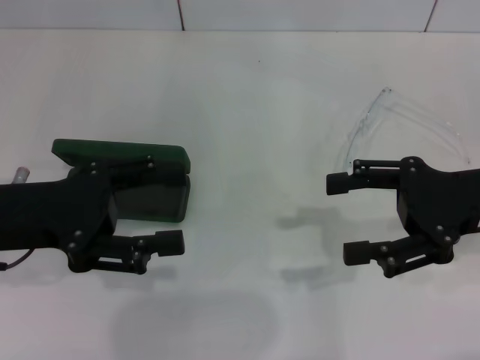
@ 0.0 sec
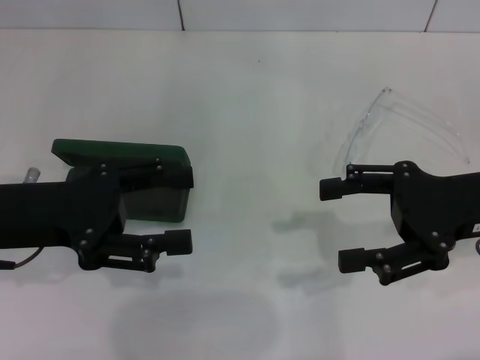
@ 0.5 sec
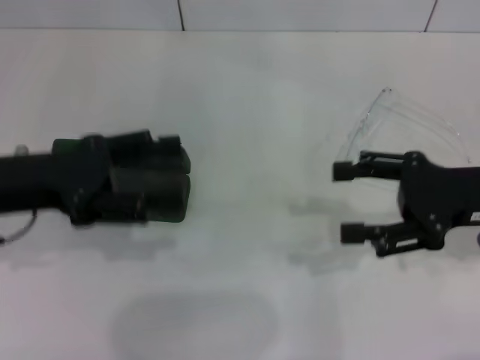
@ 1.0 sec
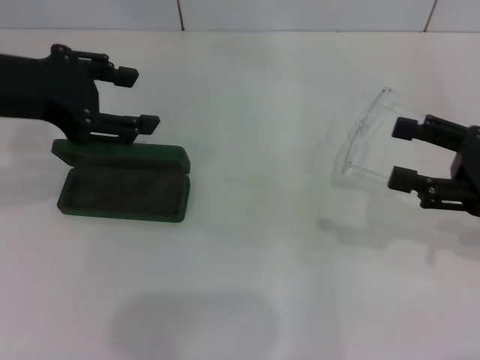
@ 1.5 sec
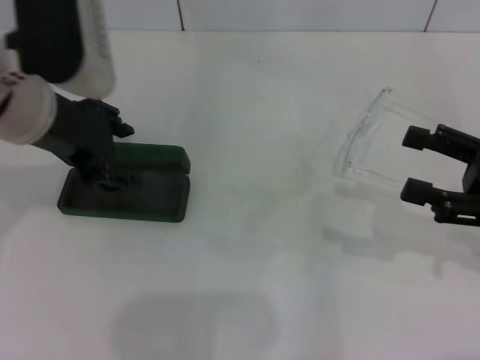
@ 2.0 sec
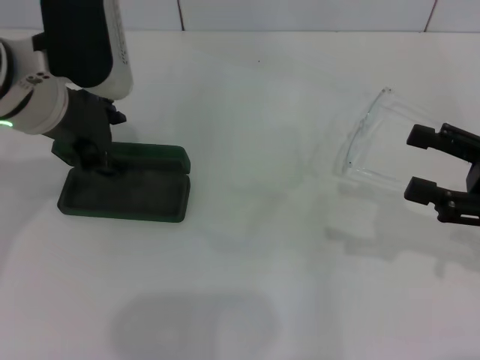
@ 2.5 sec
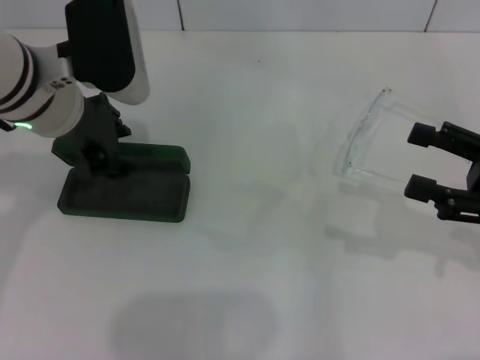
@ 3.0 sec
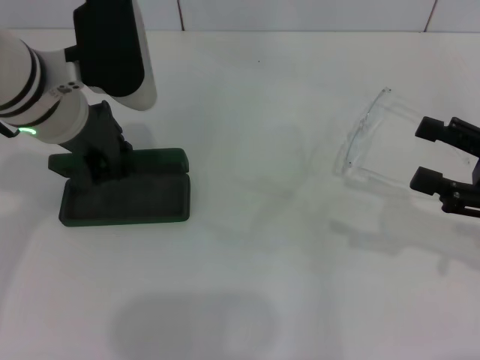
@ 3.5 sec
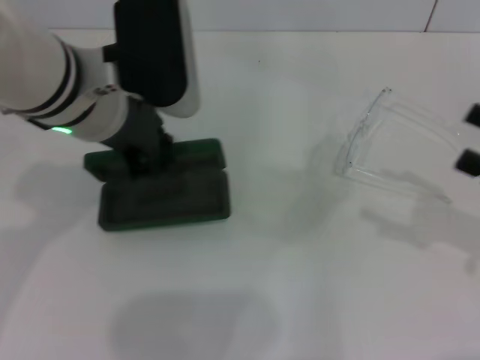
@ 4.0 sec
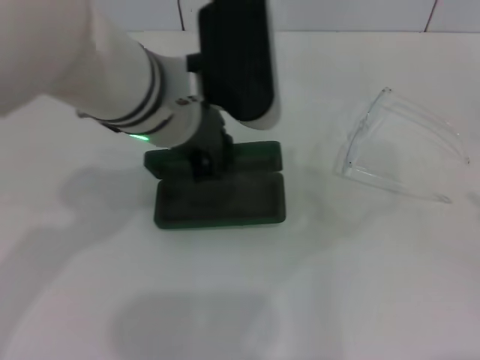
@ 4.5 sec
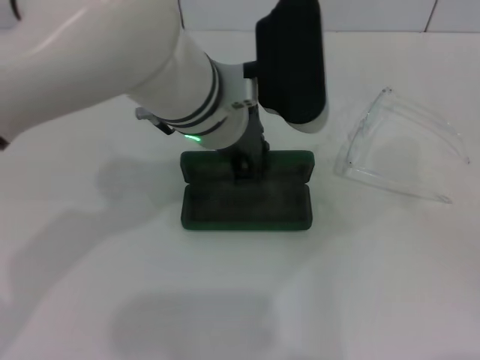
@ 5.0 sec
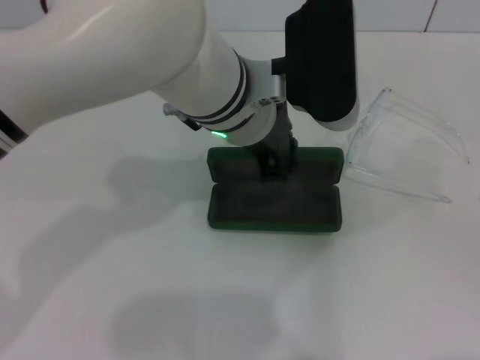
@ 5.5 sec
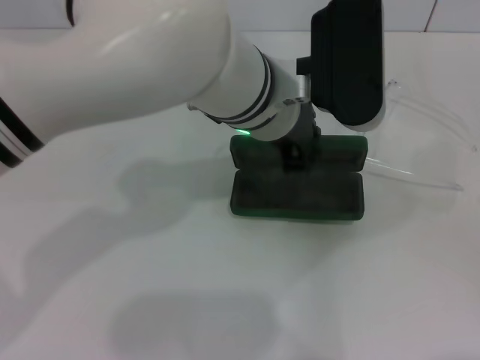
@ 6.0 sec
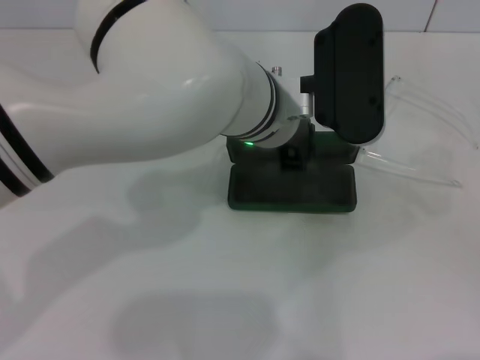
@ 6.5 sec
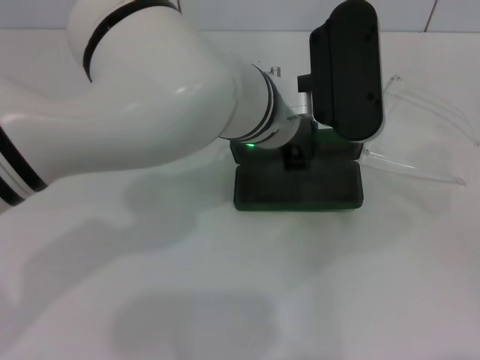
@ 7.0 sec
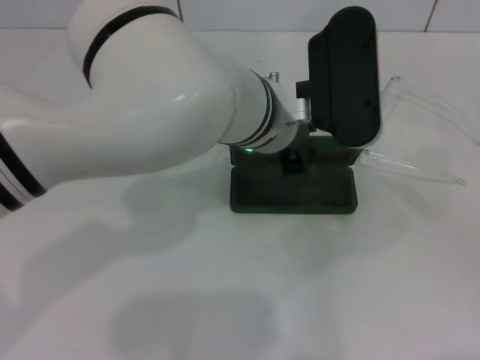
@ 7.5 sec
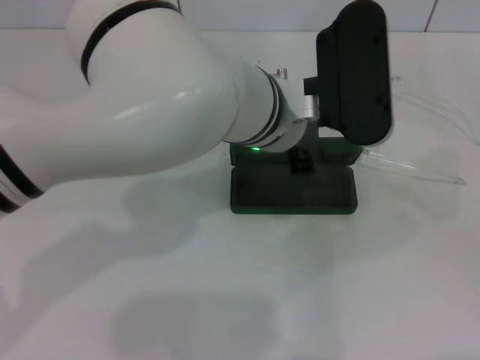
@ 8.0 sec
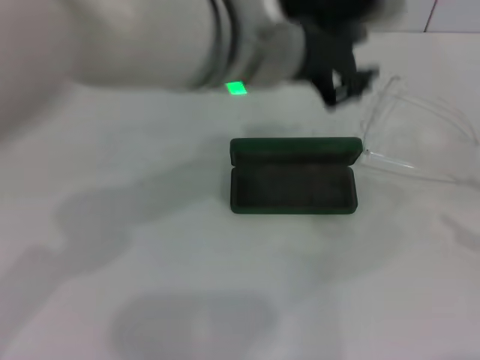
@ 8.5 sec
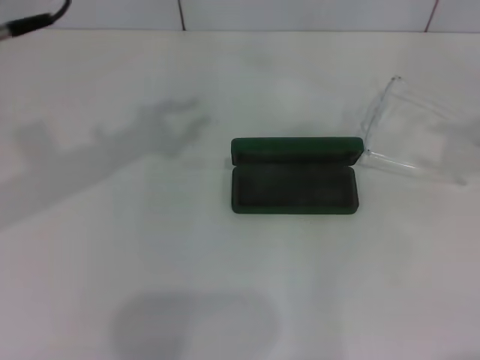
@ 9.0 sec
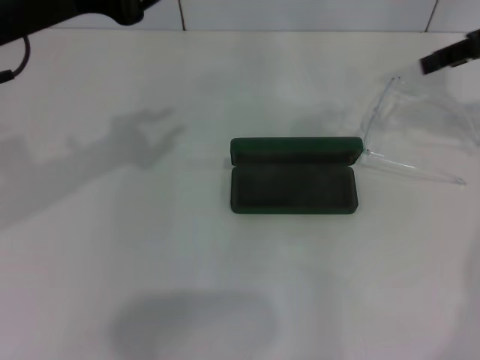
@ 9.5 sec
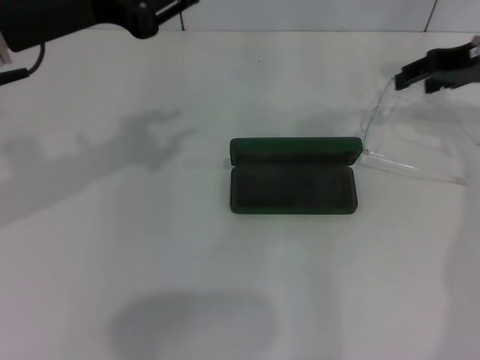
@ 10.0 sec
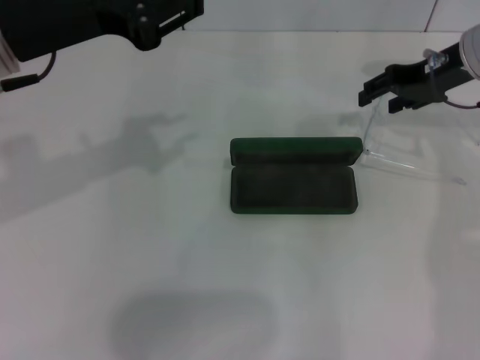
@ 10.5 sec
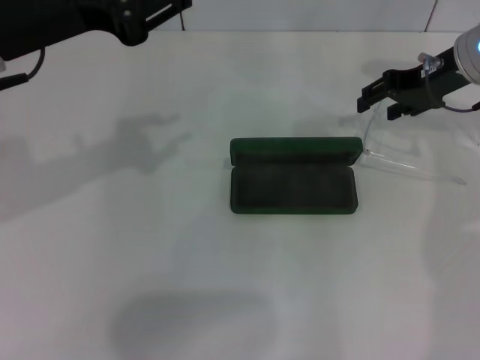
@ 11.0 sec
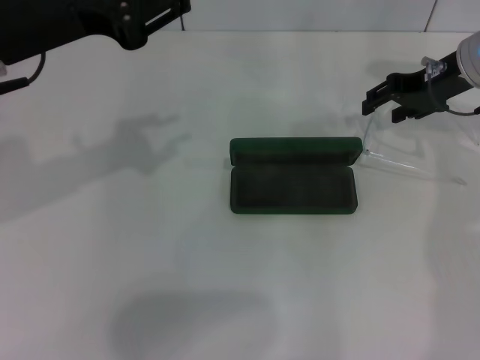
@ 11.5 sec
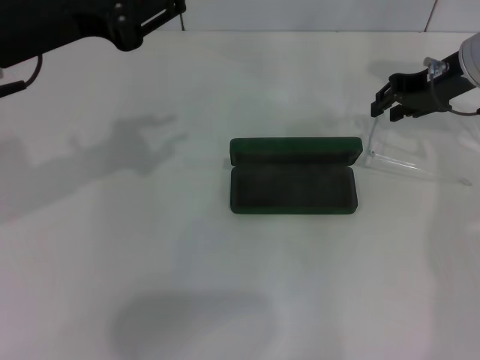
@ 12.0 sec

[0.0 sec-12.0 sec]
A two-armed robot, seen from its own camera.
Step, 0.0 sec to 3.5 sec: Grab the glasses case with your left hand.
Step, 4.0 sec to 7.5 sec: Place the glasses case in the center of the table with your left hand.
0.0 sec to 2.0 sec: The left gripper moves to the right, upward and forward, approximately 15 cm; the right gripper heads to the right, covering approximately 5 cm.
2.0 sec to 4.0 sec: The left gripper travels to the right by some 5 cm, and closes up.
4.0 sec to 6.0 sec: The right gripper goes roughly 10 cm backward and to the right. Meanwhile the left gripper moves to the right, about 15 cm.
6.0 sec to 8.0 sec: There are only small adjustments of the grippers.
8.0 sec to 10.0 sec: The left gripper travels to the left by about 20 cm; the right gripper heads forward and to the left, covering about 30 cm.
10.0 sec to 12.0 sec: The right gripper shifts by approximately 5 cm.

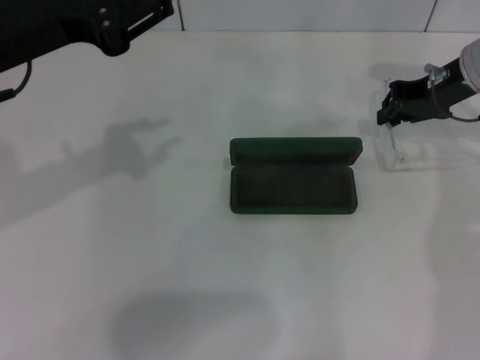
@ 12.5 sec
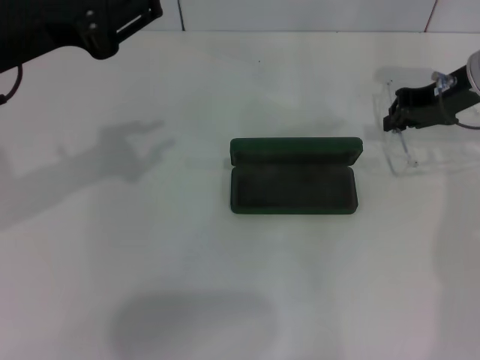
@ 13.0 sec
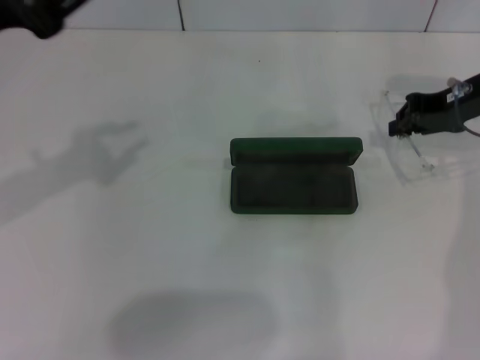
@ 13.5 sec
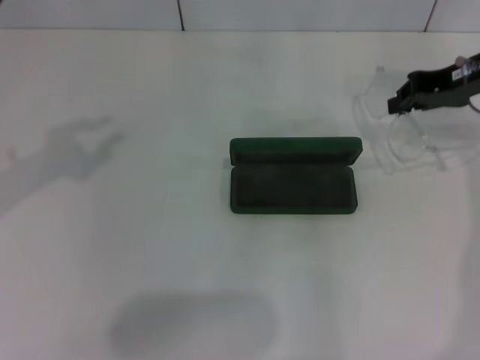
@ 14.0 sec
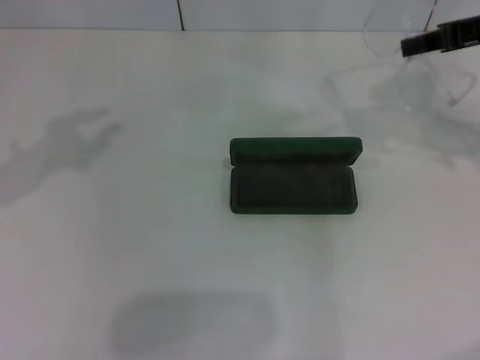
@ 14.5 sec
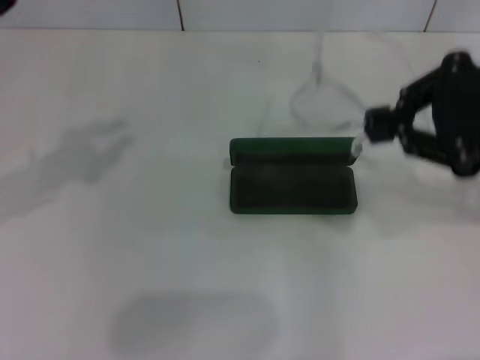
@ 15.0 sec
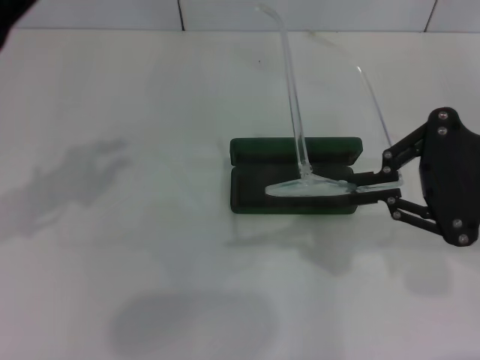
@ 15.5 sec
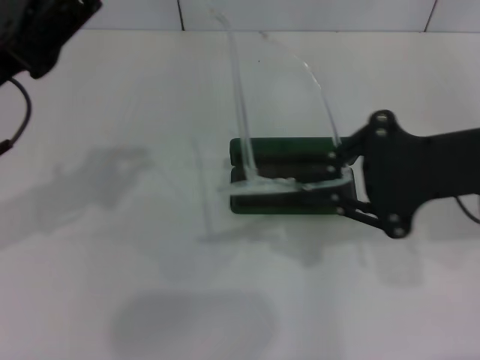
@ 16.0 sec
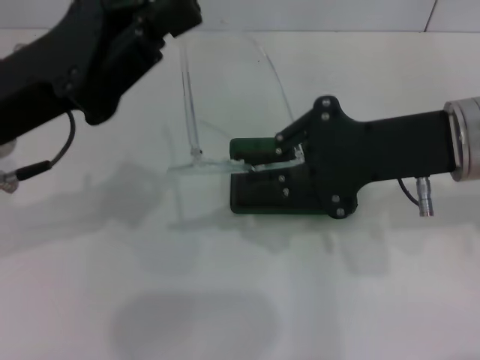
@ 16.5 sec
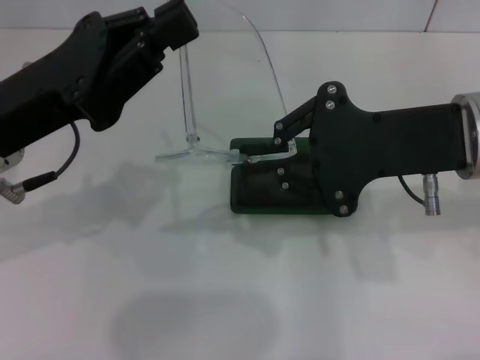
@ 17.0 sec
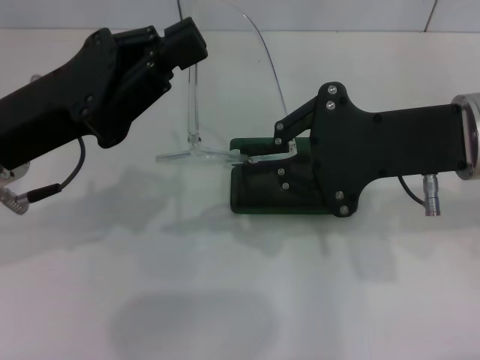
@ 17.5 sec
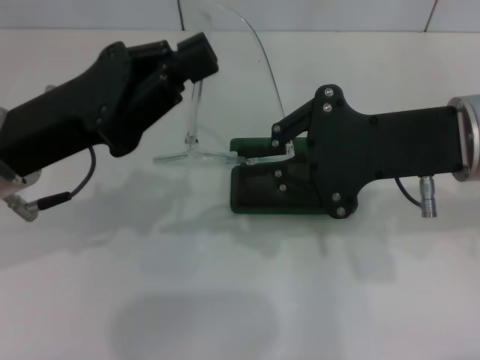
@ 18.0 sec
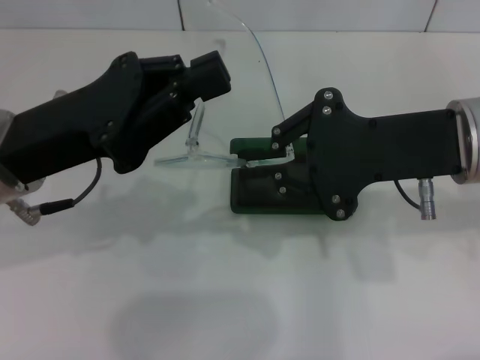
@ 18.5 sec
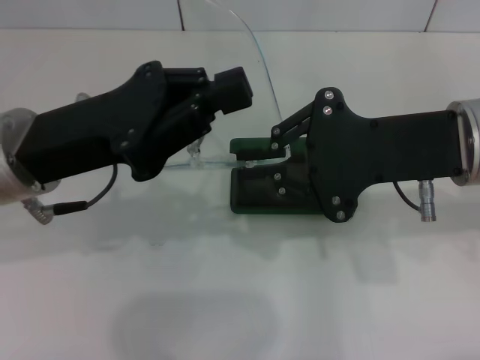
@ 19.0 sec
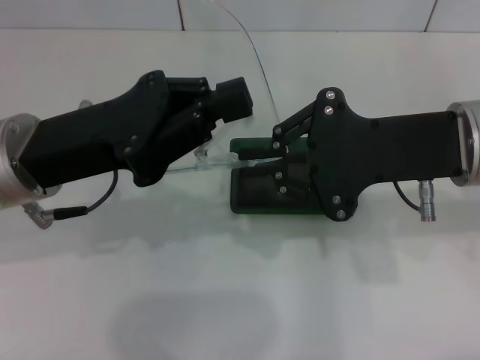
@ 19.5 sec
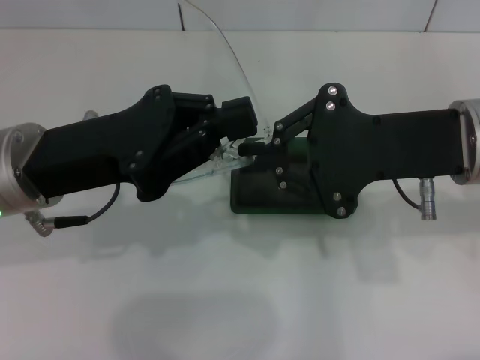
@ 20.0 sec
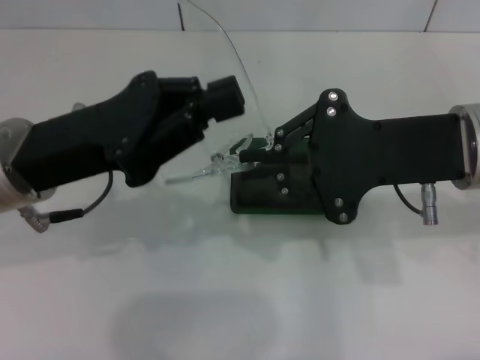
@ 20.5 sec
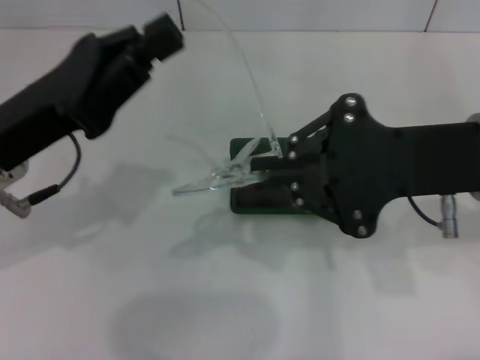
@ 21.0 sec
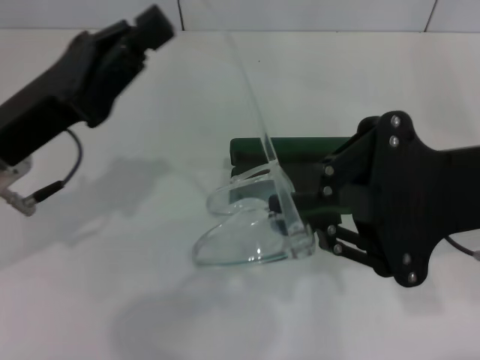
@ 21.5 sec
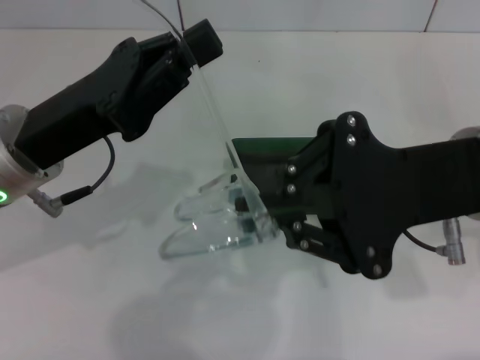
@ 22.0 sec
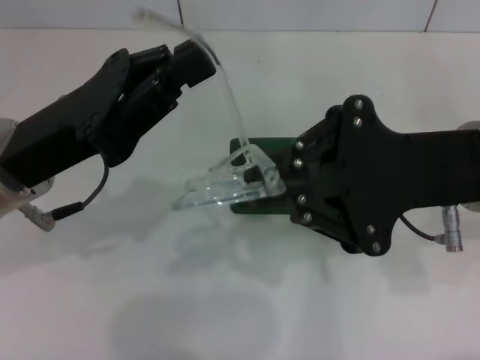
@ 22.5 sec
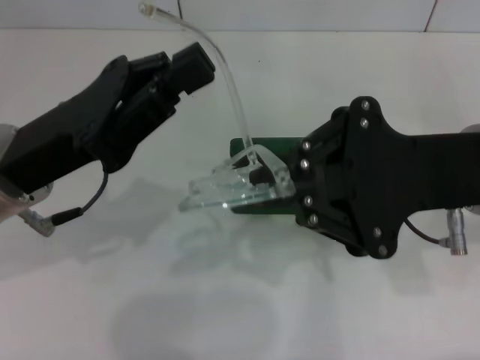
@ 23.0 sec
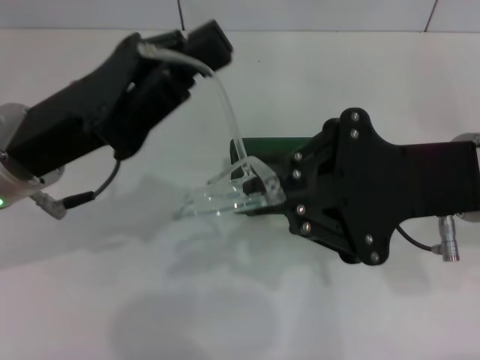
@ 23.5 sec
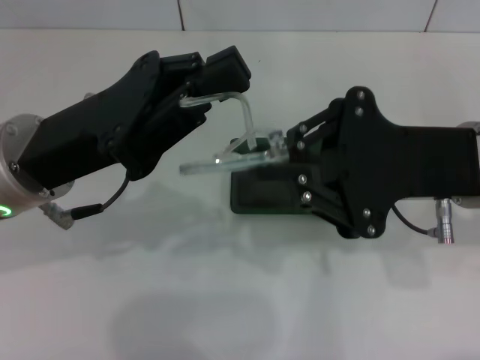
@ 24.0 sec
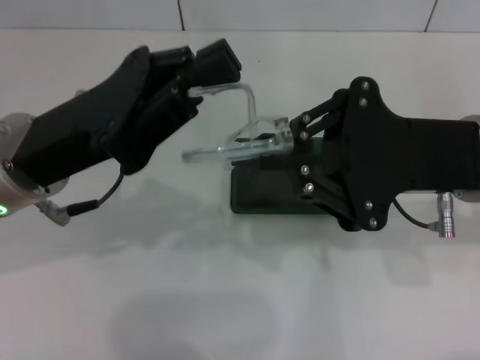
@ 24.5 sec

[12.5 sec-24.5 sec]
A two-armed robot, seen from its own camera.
12.5 sec to 14.5 sec: The right gripper moves upward and backward, some 10 cm; the left gripper moves approximately 5 cm.
14.5 sec to 16.5 sec: The left gripper heads to the right and downward, covering approximately 10 cm; the right gripper moves to the left, backward and downward, some 15 cm.
18.5 sec to 20.5 sec: The grippers stay close to where they were, moving slightly.
20.5 sec to 22.5 sec: The grippers make only small movements.
22.5 sec to 24.5 sec: There are only small adjustments of the grippers.

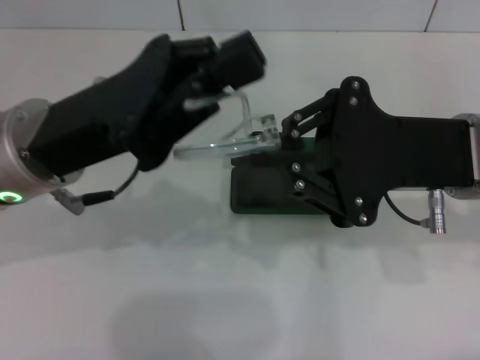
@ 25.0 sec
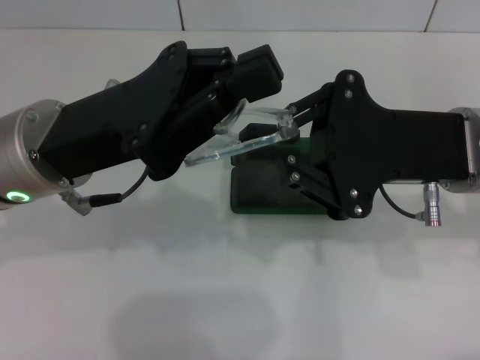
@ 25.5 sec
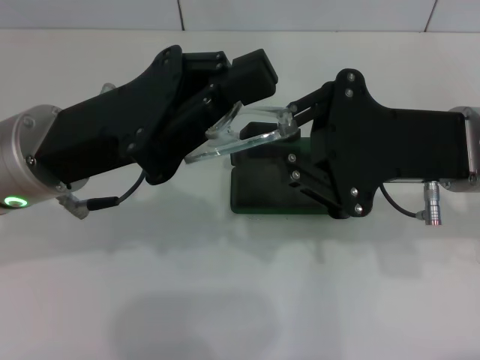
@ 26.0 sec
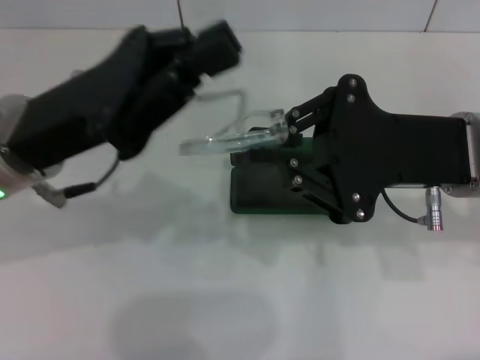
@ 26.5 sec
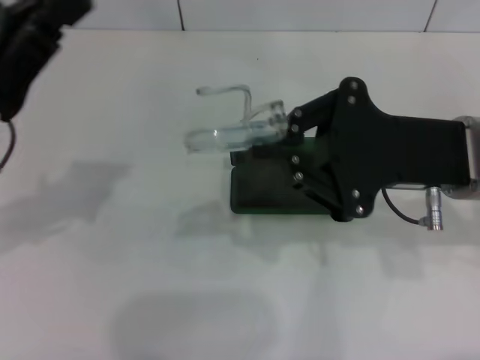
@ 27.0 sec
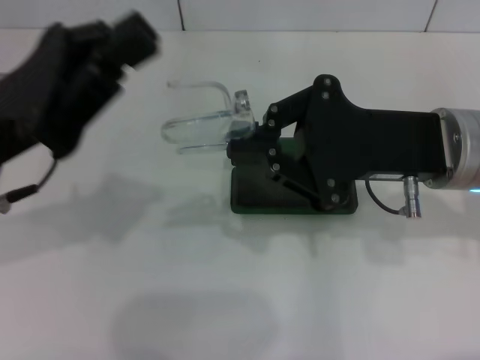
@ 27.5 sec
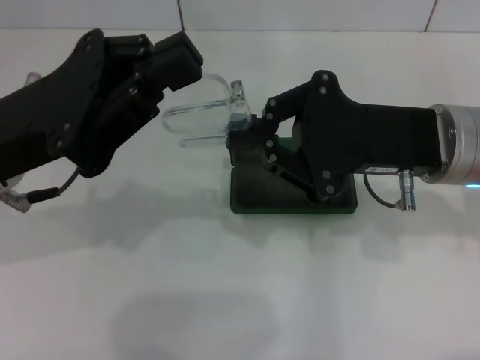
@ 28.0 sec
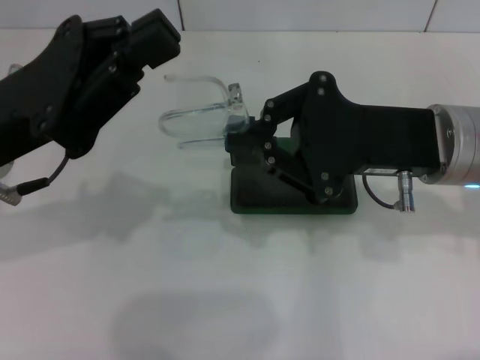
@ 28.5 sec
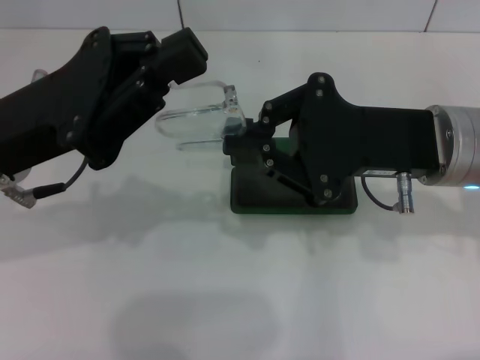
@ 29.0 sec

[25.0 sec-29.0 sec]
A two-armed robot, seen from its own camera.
25.0 sec to 27.0 sec: The left gripper shifts roughly 10 cm to the left.
